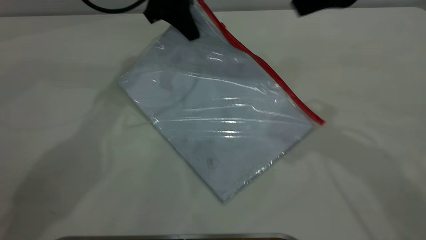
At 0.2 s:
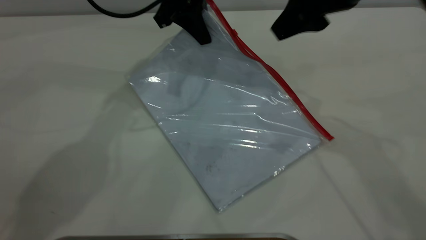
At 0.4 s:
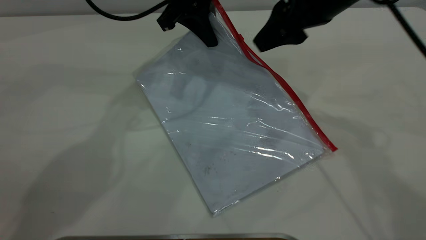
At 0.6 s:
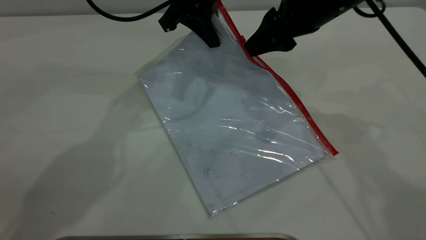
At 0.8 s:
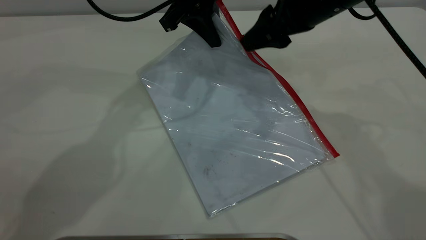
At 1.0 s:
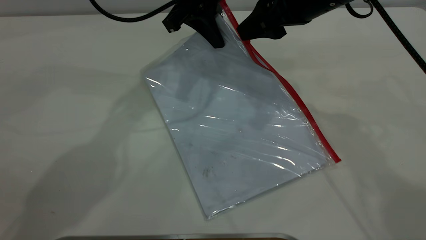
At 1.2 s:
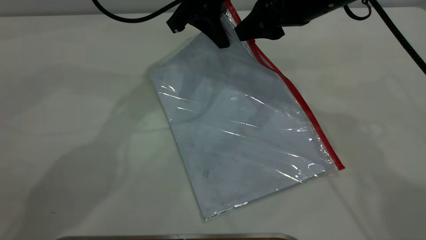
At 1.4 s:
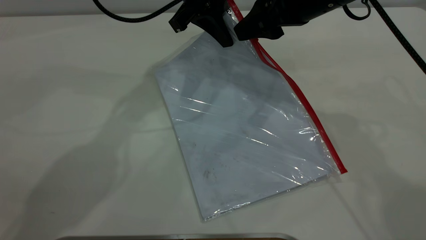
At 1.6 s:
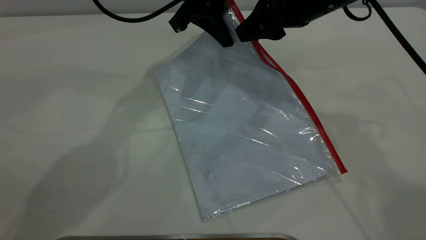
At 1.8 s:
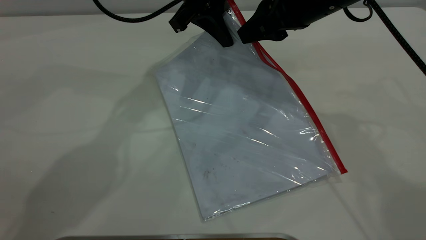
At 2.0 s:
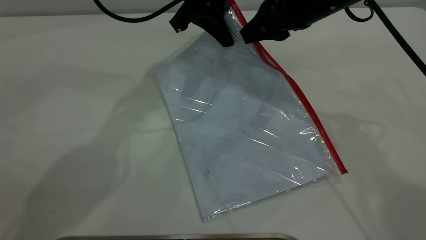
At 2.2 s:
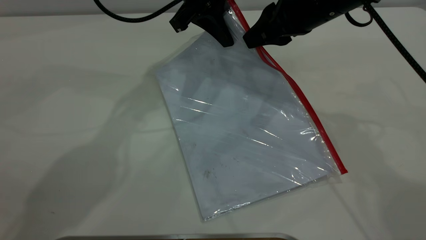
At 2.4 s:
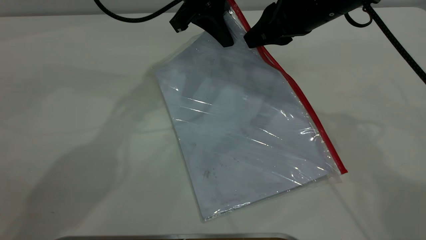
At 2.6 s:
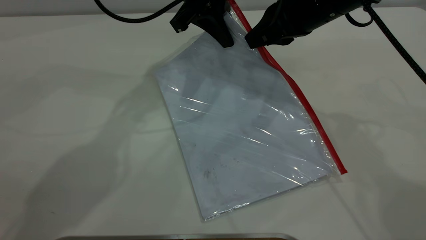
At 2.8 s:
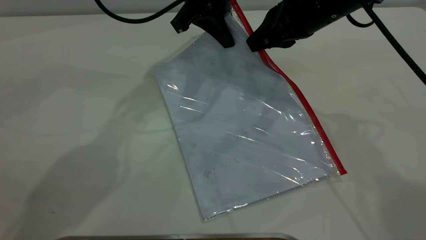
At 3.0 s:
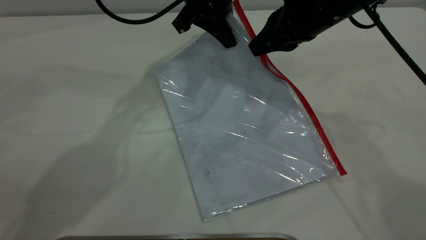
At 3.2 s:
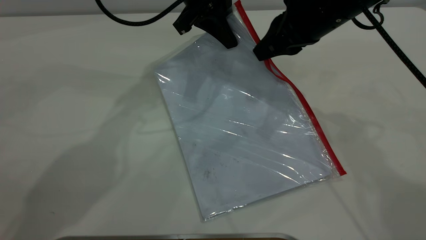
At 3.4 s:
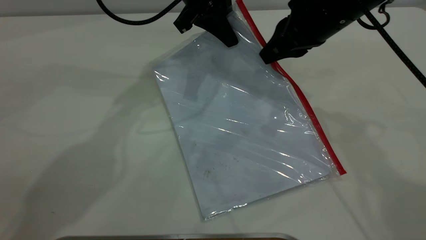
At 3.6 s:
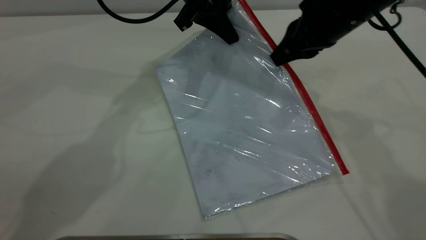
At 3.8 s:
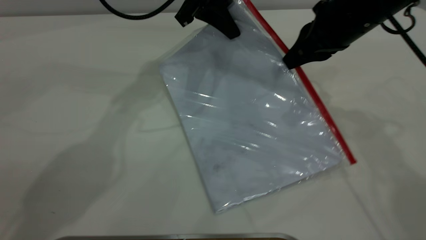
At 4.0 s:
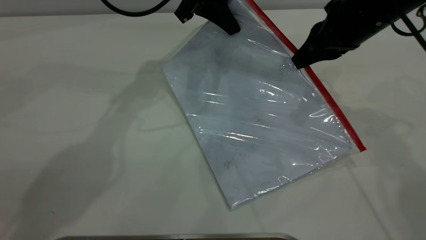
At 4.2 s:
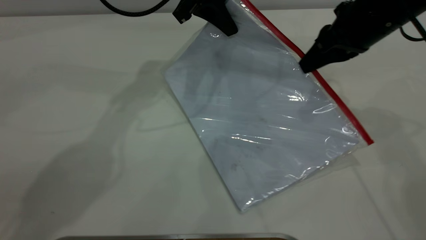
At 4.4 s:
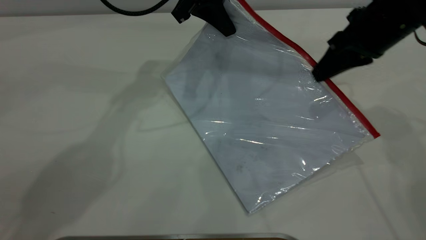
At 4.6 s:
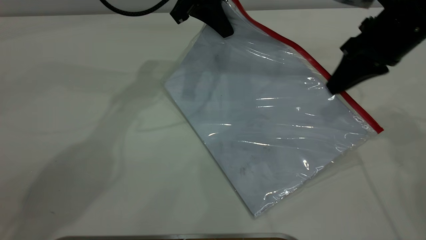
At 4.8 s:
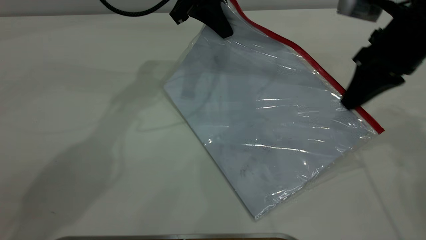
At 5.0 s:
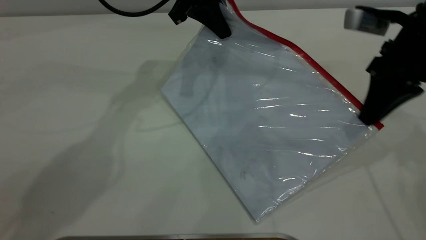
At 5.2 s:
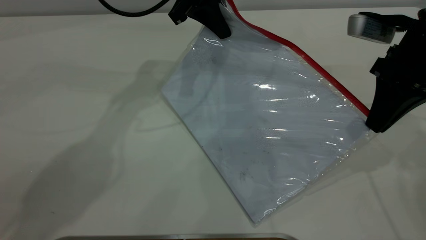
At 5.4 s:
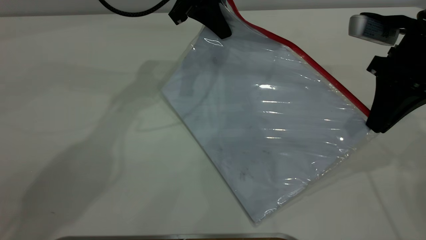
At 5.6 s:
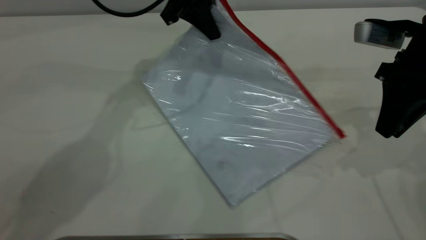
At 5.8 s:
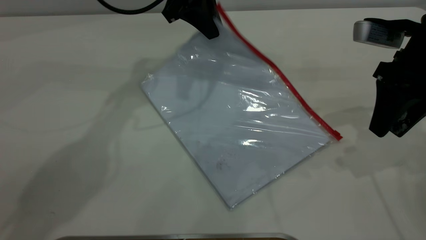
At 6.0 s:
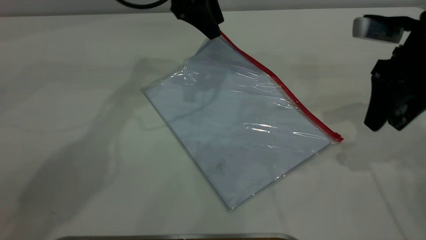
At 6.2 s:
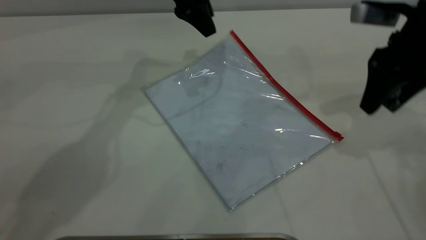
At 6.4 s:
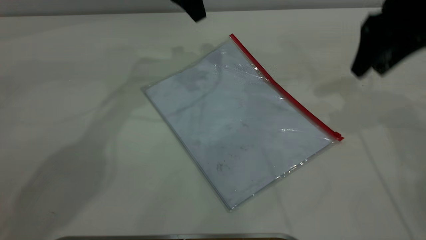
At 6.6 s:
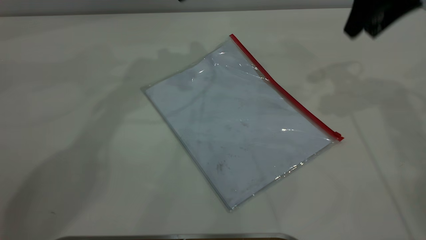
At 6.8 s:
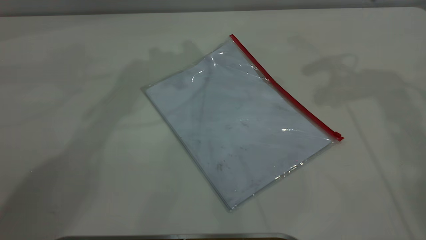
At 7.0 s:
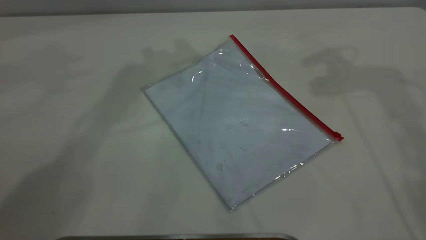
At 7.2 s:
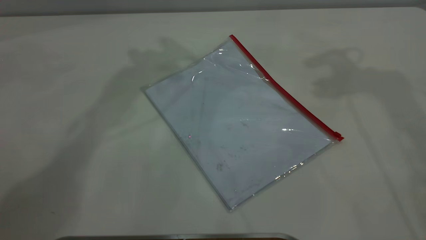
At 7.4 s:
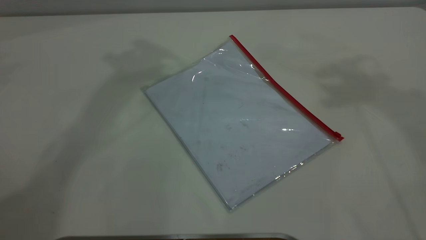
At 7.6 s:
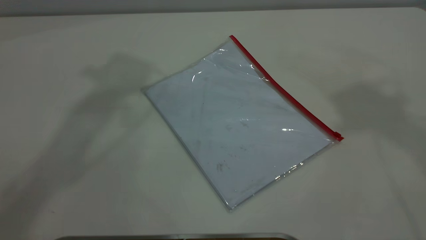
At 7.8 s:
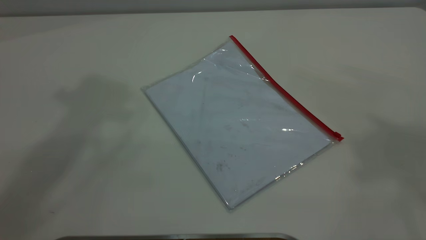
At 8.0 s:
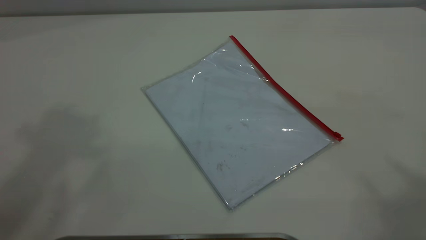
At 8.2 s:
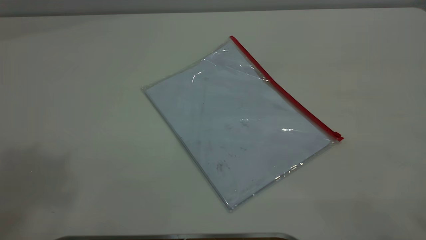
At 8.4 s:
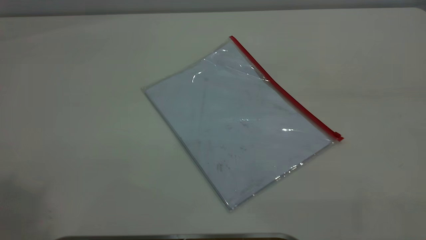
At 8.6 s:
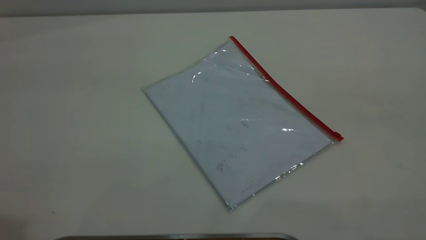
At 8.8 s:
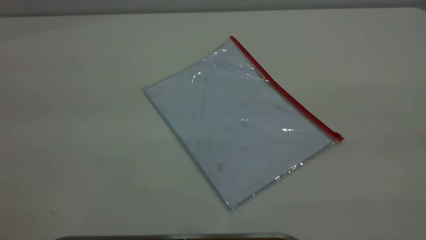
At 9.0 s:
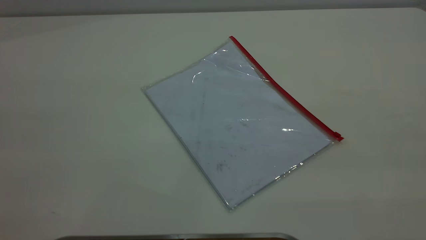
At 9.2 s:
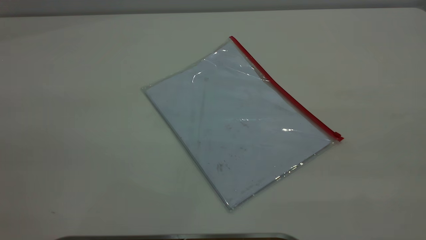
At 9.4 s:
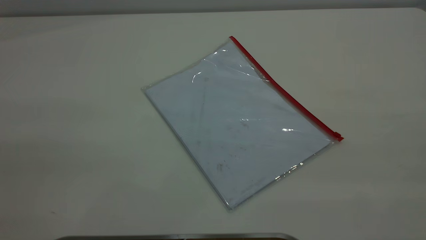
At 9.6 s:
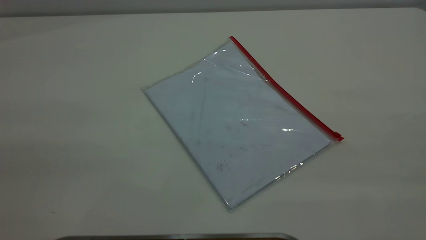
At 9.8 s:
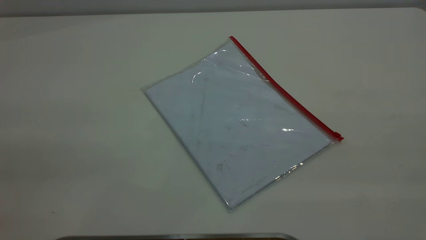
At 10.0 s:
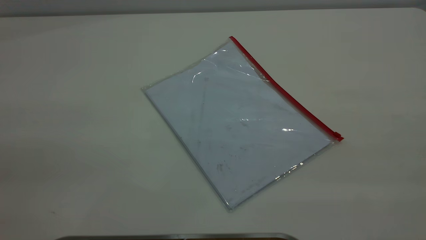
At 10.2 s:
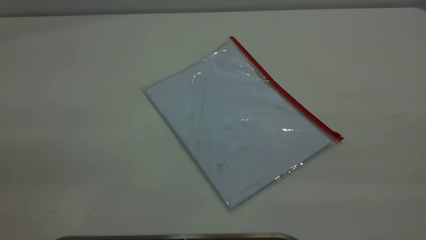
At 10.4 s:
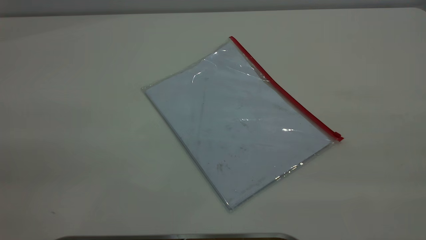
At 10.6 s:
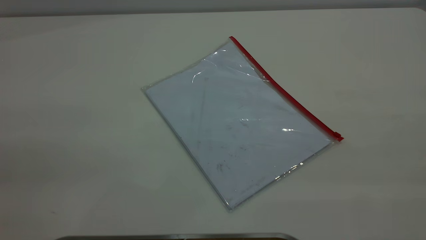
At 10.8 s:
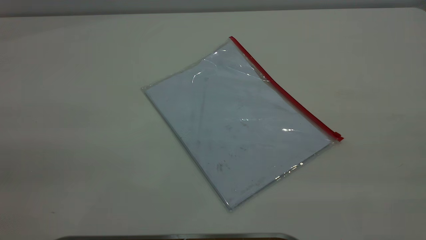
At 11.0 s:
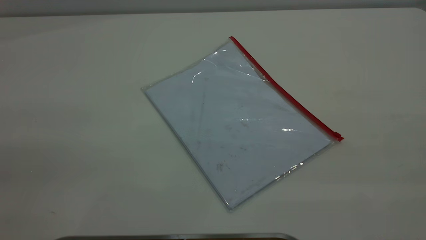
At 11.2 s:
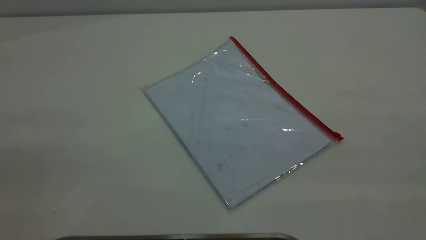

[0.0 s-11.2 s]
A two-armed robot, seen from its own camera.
Step, 0.0 to 5.4 s: Pulling up the zipper on the transparent plastic bag with the right gripper to close it.
Step, 5.6 to 6.0 s: Place the transparent plastic bag.
0.0 to 1.6 s: The right gripper travels downward and forward by roughly 10 cm, while the left gripper ends up approximately 5 cm from where it was.
1.6 to 3.2 s: The right gripper closes.
3.2 to 4.8 s: The right gripper is displaced to the right by approximately 10 cm.
4.8 to 6.4 s: The left gripper shifts by some 5 cm, and opens up; the right gripper travels forward by some 5 cm, and opens.
6.4 to 8.0 s: The right gripper goes about 50 cm upward and backward.

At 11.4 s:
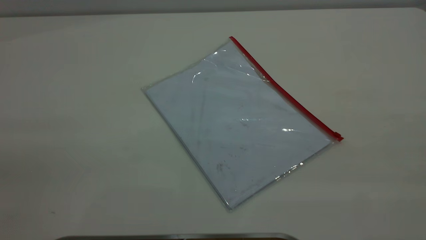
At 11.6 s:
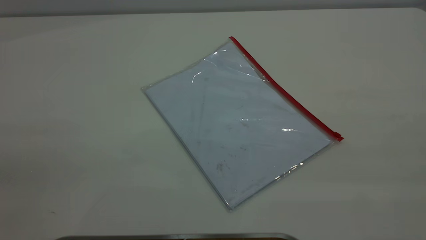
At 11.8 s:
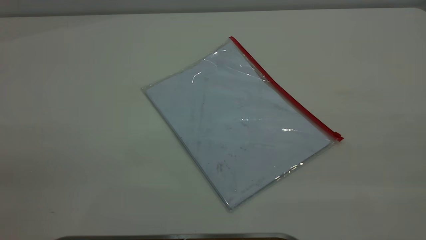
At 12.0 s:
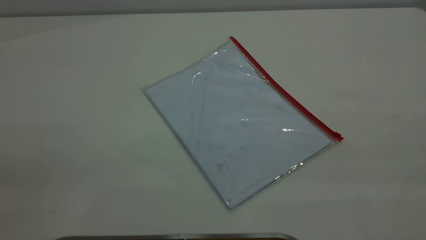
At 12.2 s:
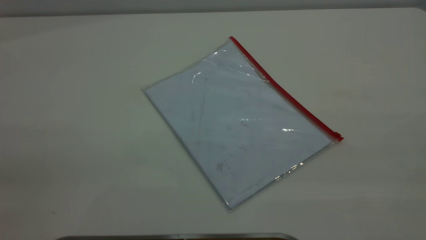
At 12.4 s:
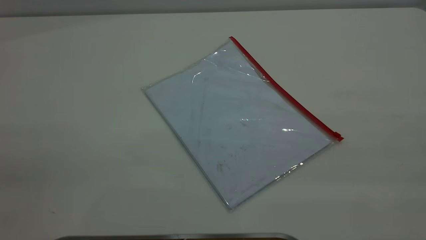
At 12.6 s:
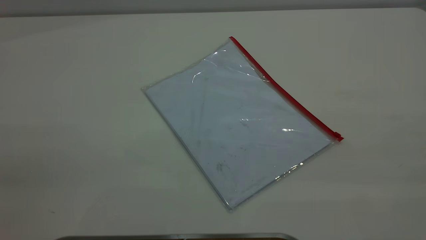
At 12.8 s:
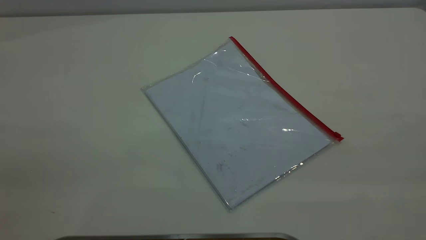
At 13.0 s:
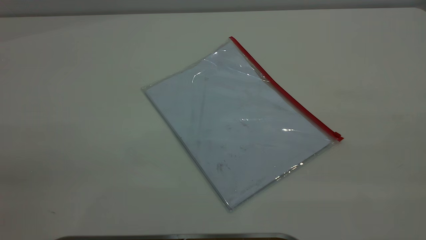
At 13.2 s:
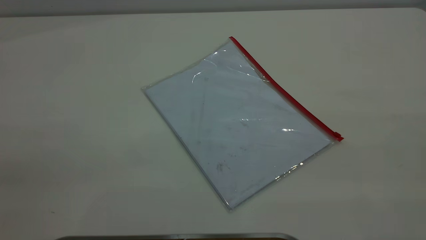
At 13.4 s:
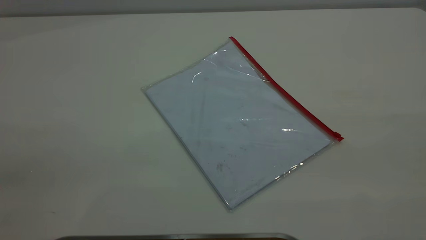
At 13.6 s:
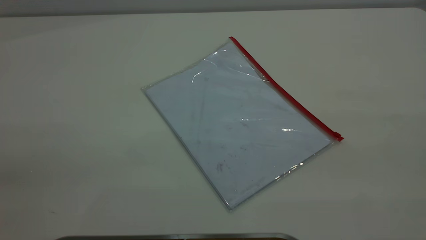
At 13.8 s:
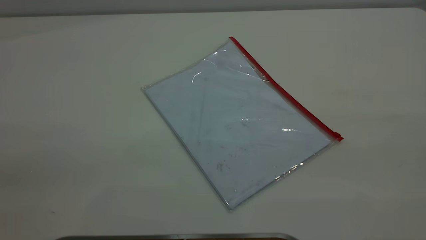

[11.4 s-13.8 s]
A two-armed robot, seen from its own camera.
11.4 to 12.6 s: Both grippers stay put.
